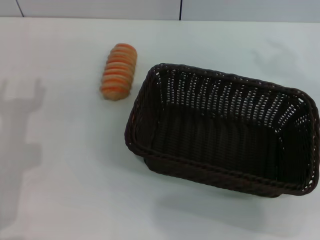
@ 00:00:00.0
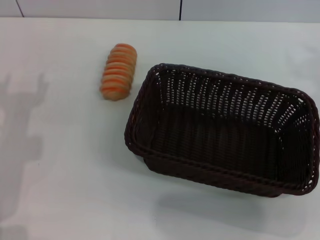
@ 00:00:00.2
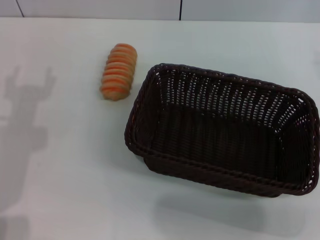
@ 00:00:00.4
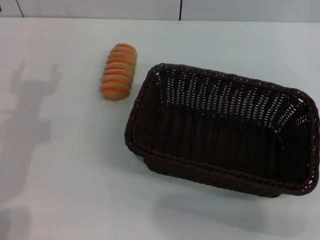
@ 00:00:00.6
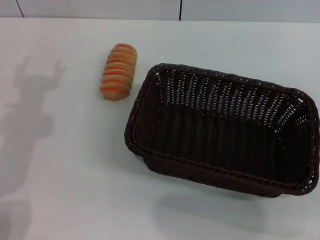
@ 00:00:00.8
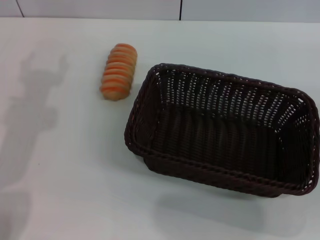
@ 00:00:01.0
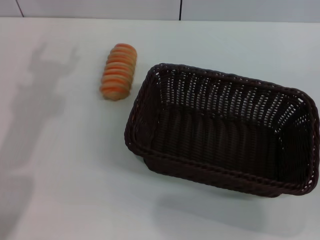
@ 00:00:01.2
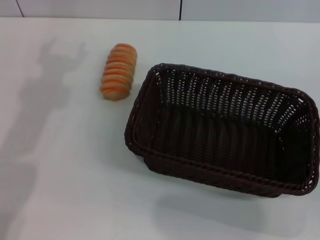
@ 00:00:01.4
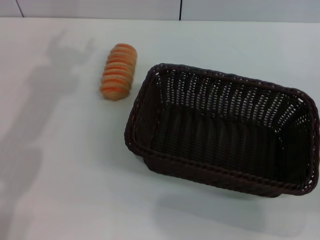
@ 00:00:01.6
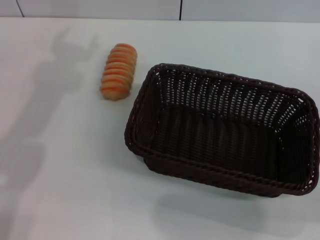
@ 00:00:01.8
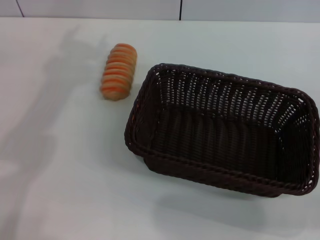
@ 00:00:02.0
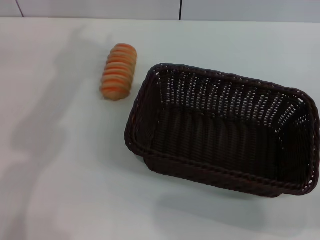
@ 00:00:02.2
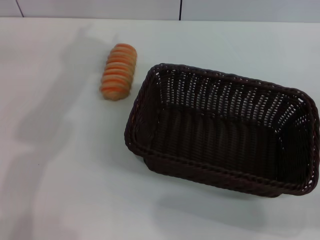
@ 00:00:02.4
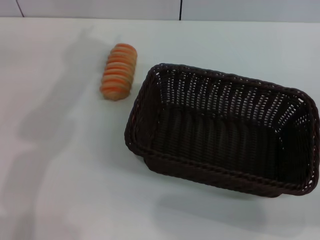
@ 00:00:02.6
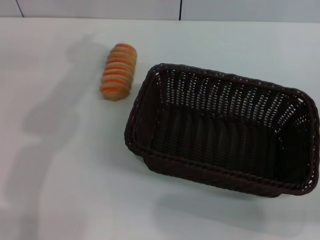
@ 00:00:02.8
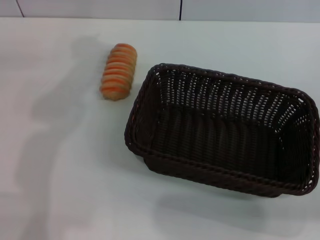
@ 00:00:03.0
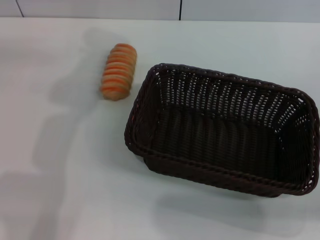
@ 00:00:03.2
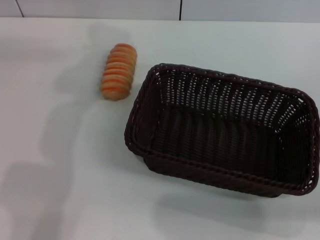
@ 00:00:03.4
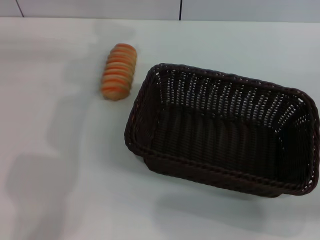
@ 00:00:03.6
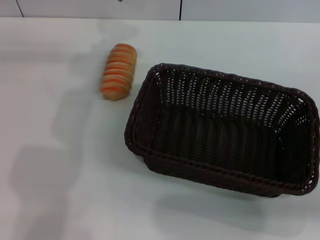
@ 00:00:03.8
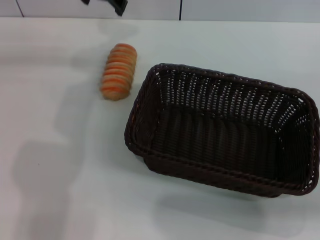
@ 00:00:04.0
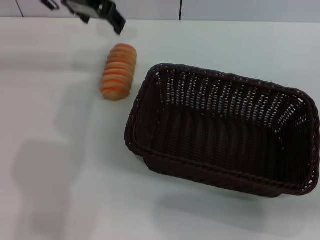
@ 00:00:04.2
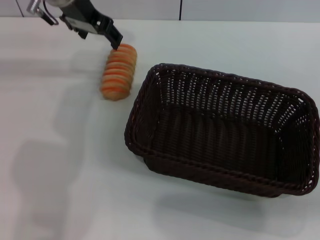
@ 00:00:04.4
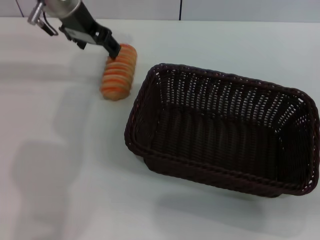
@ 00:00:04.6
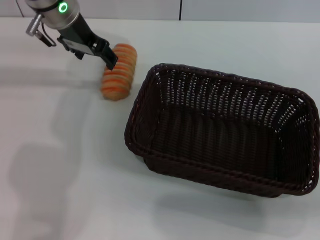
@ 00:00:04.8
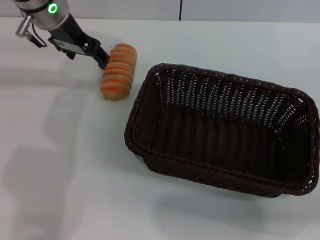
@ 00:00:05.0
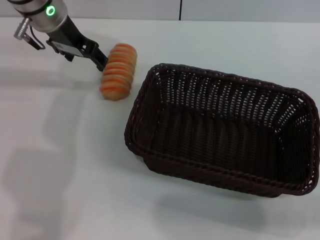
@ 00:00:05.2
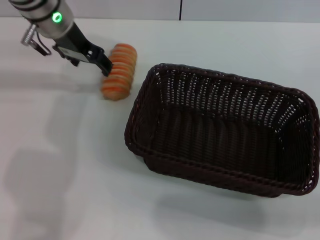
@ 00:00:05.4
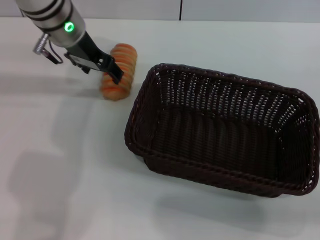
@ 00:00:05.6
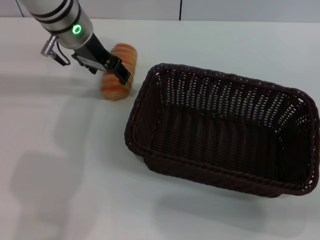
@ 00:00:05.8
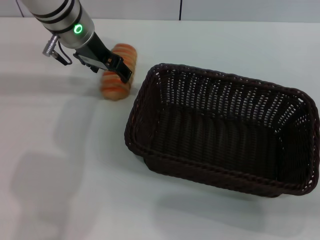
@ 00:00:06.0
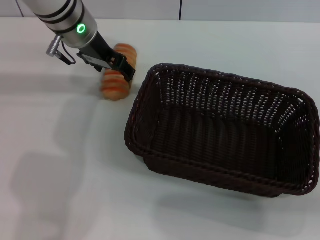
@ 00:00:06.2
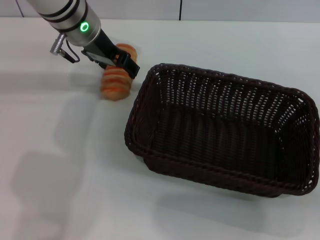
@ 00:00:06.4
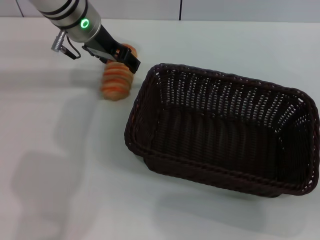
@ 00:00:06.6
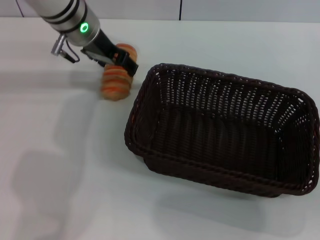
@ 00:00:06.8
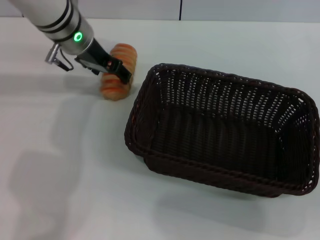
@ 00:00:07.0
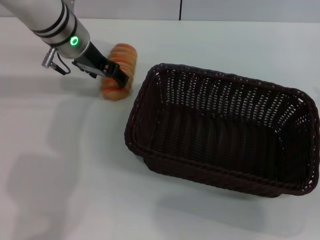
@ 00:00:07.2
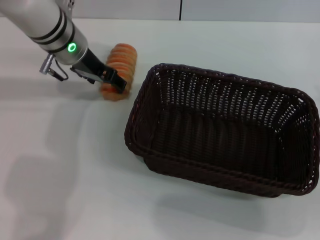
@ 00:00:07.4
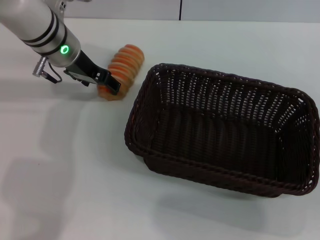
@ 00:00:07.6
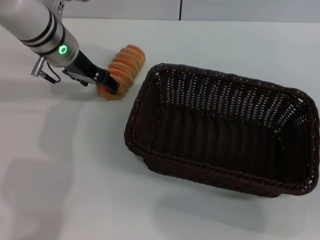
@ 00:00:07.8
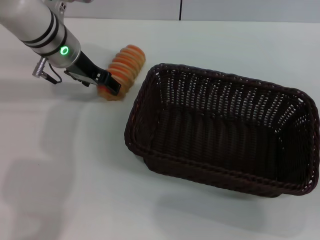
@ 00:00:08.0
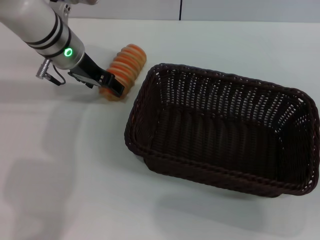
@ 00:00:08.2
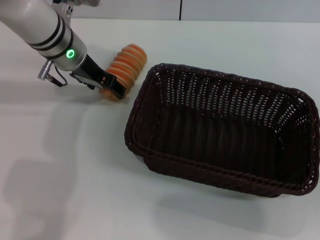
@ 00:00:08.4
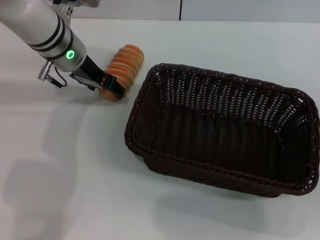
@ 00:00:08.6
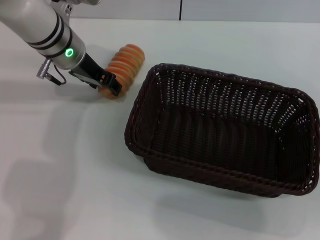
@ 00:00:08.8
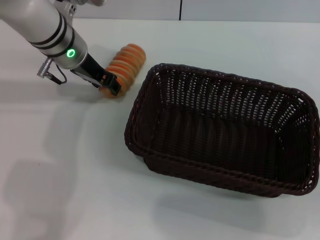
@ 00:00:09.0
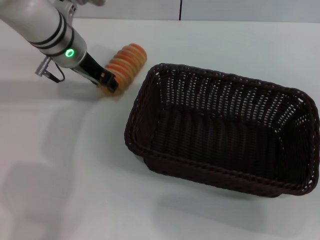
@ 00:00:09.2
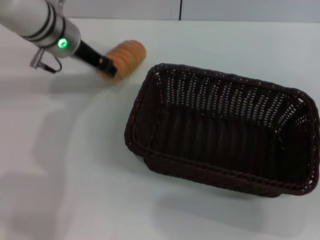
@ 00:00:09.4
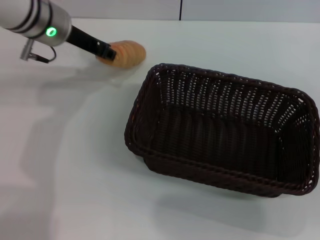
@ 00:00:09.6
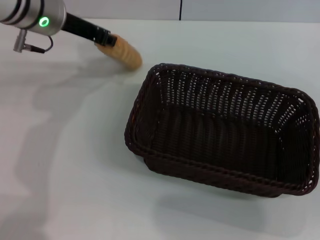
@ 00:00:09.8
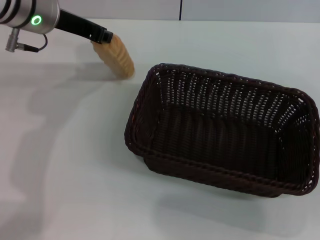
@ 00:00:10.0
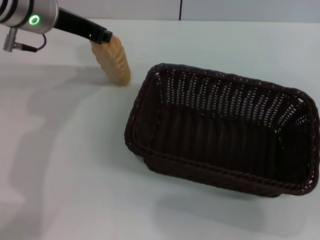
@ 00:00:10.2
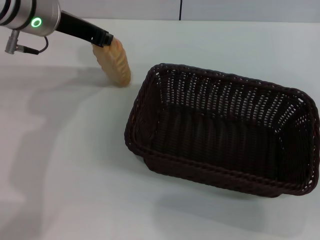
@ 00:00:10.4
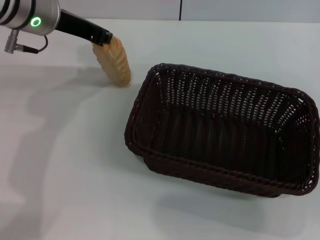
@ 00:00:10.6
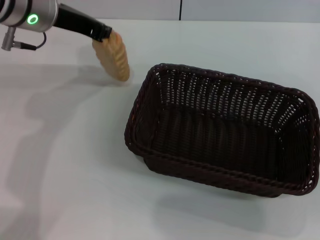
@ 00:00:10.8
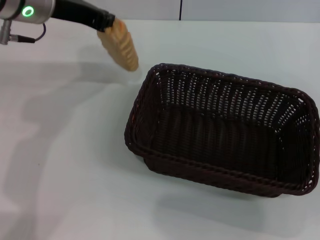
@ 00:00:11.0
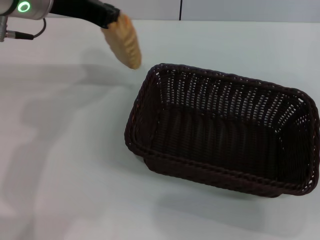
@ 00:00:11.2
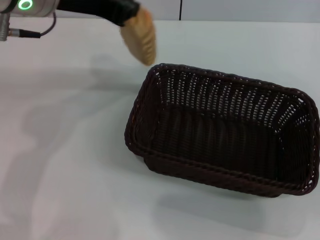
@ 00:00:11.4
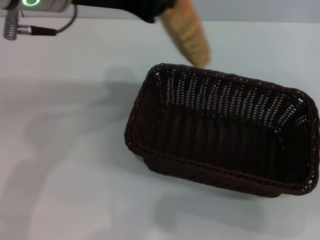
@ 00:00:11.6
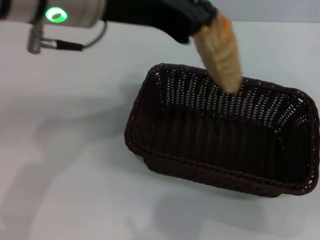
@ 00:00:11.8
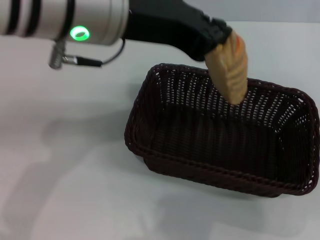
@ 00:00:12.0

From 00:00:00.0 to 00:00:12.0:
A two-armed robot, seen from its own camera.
Step, from 00:00:00.0 to 00:00:11.0: Pick up the long bread with the left gripper.
From 00:00:01.6 to 00:00:03.0: The left gripper moves to the right and forward, some 10 cm.
From 00:00:03.0 to 00:00:04.4: The left gripper goes about 15 cm downward and forward.
From 00:00:04.4 to 00:00:06.0: The left gripper is displaced downward by about 5 cm.
From 00:00:07.6 to 00:00:09.0: The grippers move only a little.
From 00:00:09.0 to 00:00:10.4: The left gripper travels upward by approximately 5 cm, and closes.
From 00:00:10.4 to 00:00:12.0: The left gripper is displaced backward, to the right and upward by roughly 15 cm.

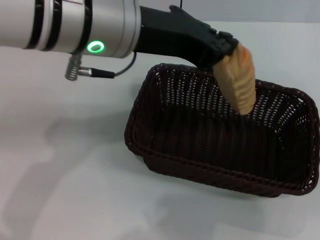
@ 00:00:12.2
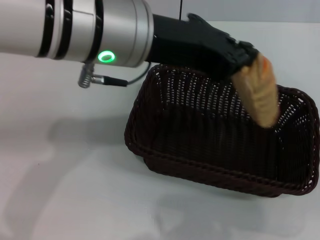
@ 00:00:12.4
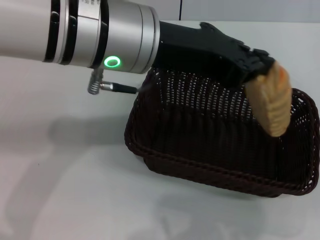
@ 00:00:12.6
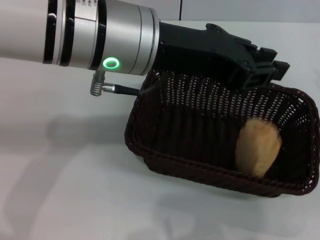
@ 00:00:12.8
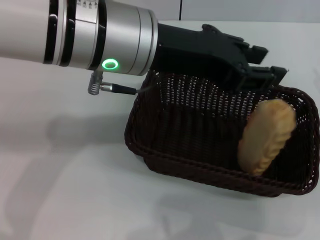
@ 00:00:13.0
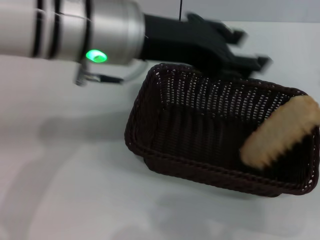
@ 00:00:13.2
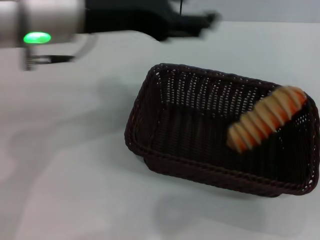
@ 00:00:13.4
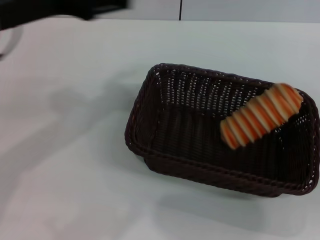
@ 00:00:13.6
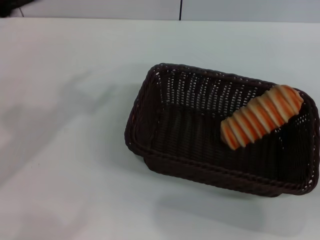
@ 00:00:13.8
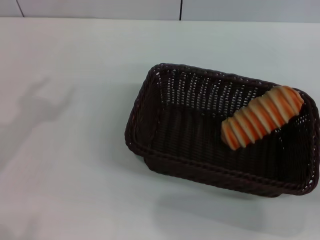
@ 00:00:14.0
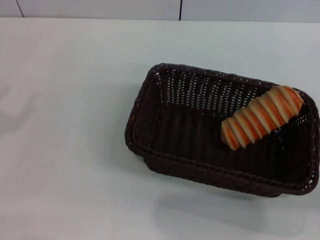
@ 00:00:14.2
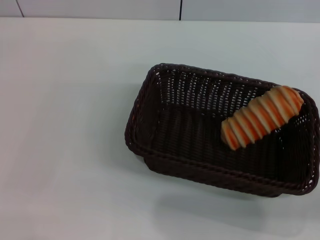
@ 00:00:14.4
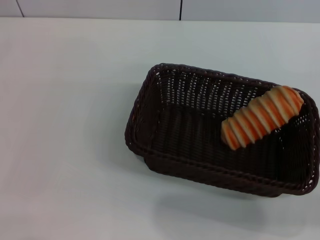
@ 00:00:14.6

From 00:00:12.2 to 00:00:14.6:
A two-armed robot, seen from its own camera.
Step, from 00:00:12.2 to 00:00:13.2: Place the long bread into the dark basket with the left gripper.
From 00:00:12.2 to 00:00:13.4: The left gripper opens its fingers.
From 00:00:13.4 to 00:00:14.6: The left gripper is displaced to the left and backward by approximately 35 cm. The right gripper heads backward and to the right, covering approximately 10 cm.
